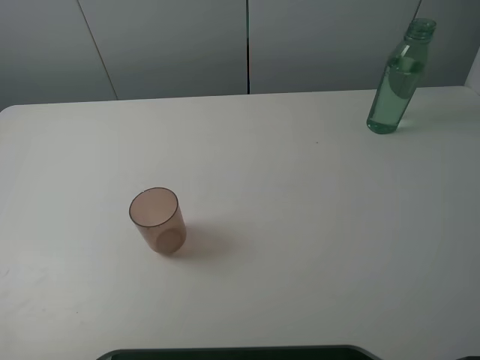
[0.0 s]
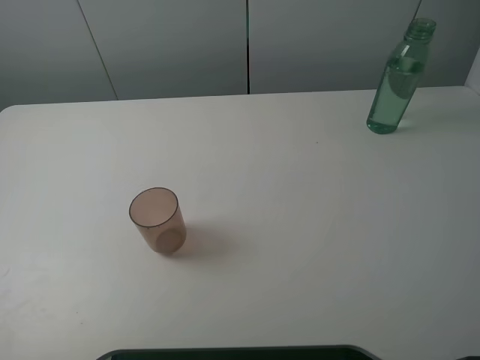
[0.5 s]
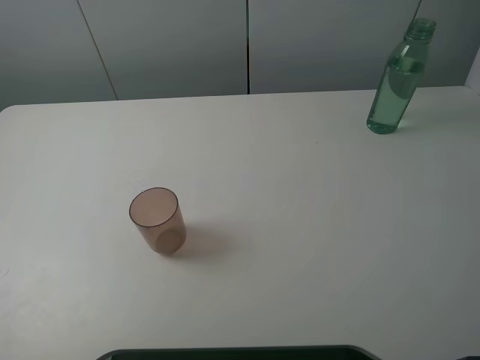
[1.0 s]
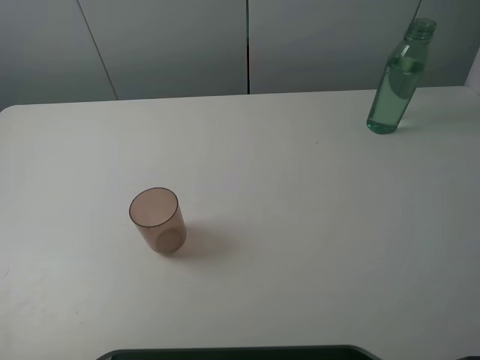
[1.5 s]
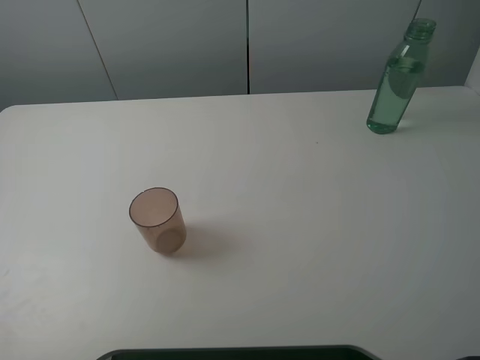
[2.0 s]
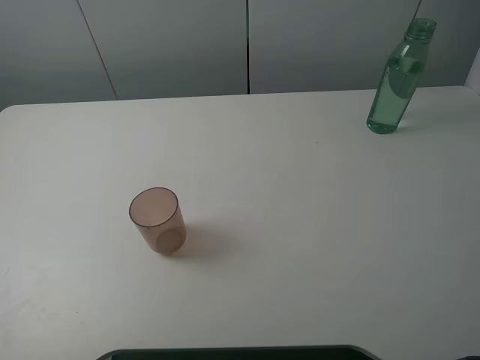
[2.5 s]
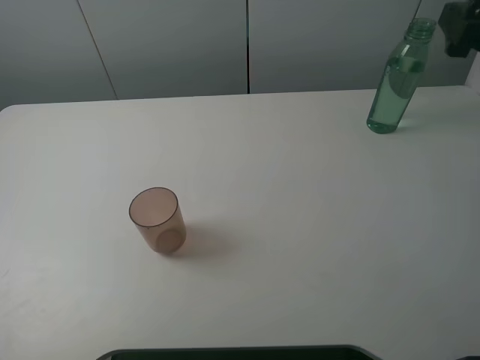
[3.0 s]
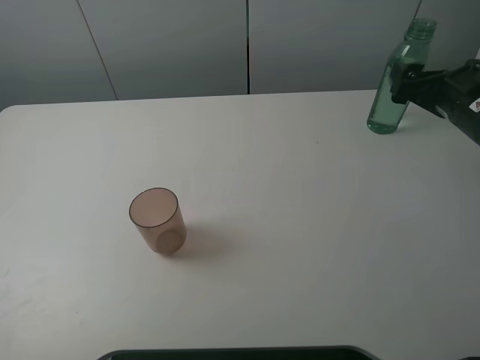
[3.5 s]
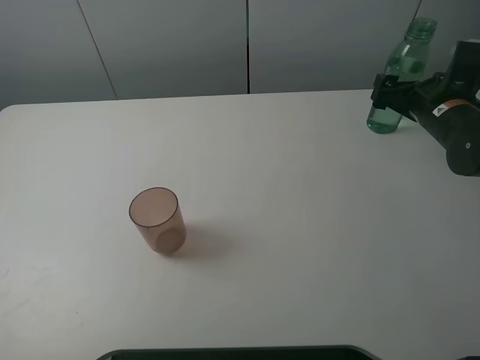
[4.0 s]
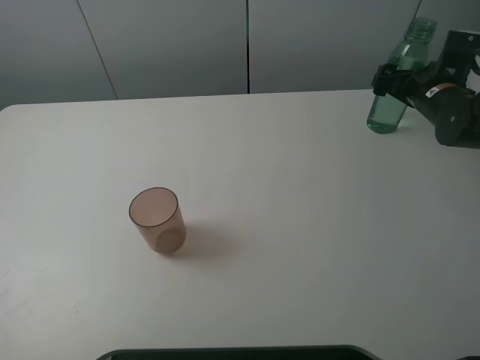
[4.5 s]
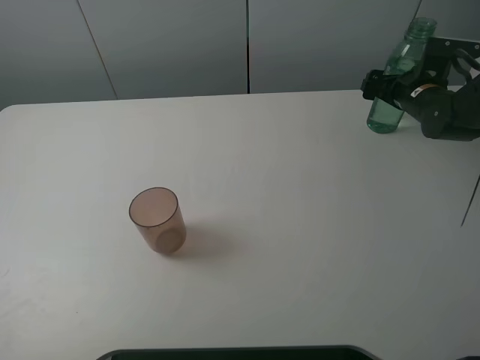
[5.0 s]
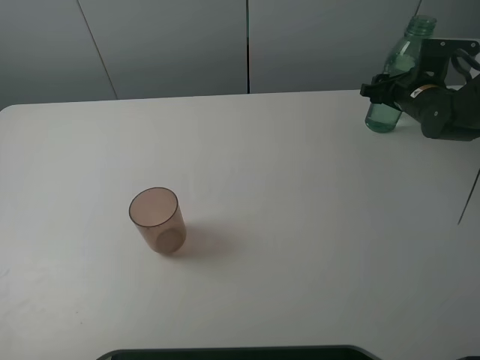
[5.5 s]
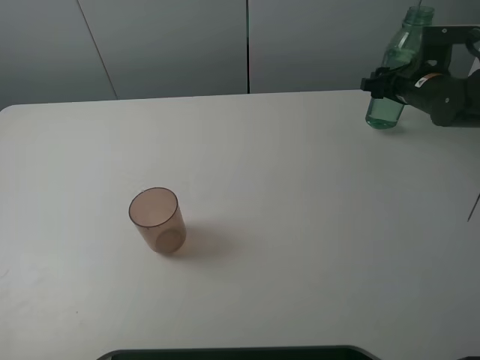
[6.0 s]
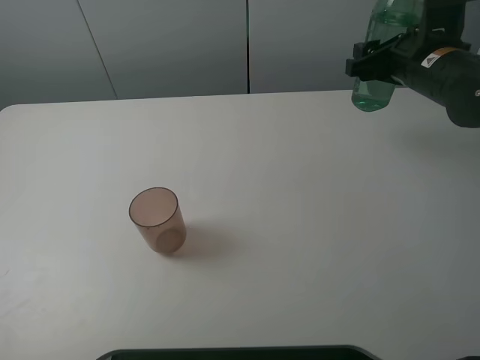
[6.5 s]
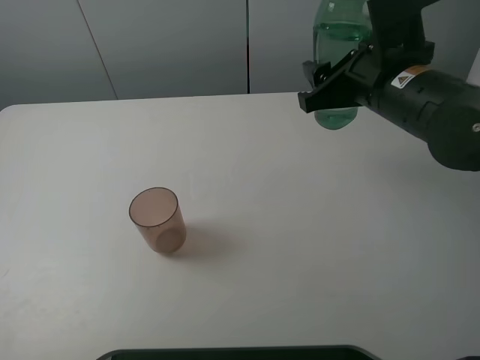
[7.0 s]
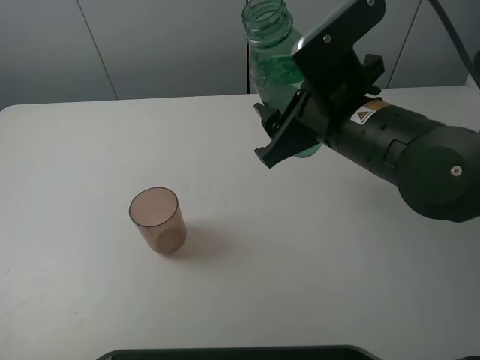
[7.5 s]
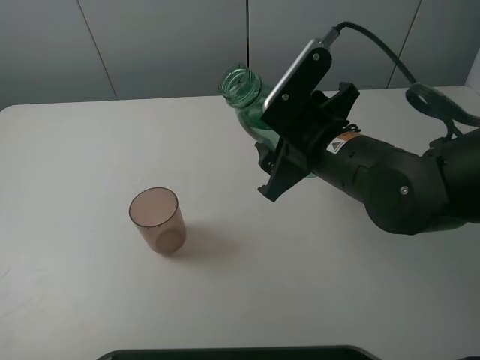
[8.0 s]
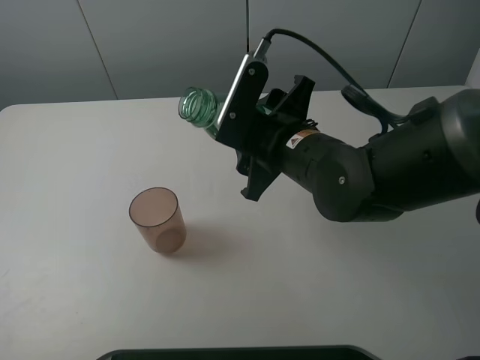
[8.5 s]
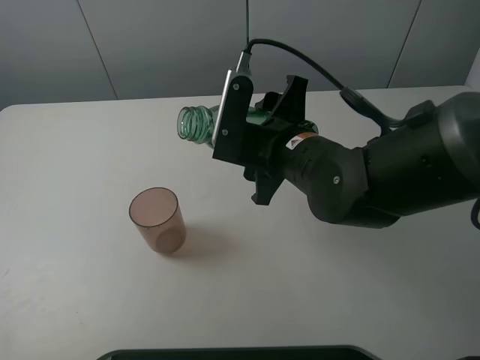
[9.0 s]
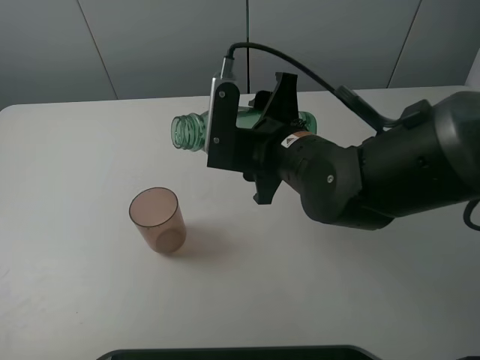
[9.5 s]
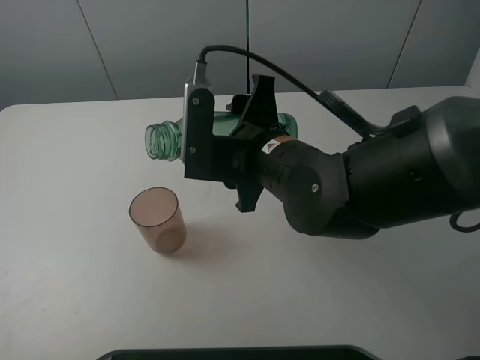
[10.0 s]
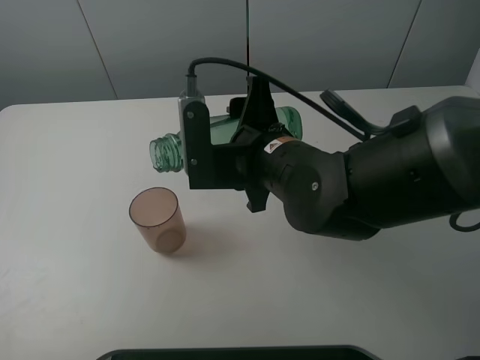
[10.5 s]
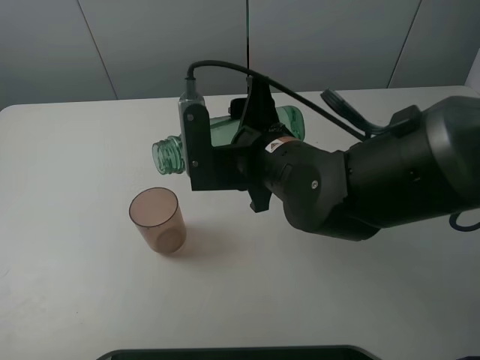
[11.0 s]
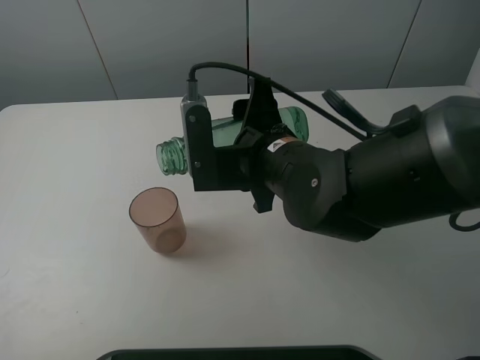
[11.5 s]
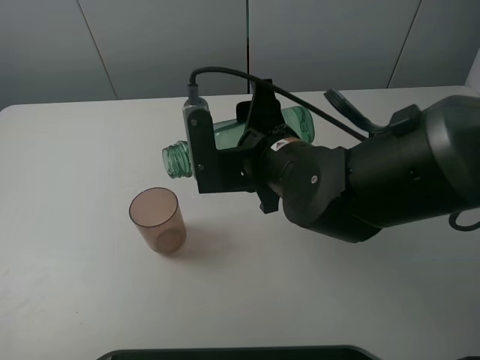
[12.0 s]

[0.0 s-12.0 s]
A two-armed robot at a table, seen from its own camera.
Task of the whole recording: pick up the bottle filled with water and pour it into the pink cup.
Step, 0.0 to 5.5 s: Grasp the green bottle with the right gripper.
2.0 to 4.0 s: The right gripper heads forward and downward, covering about 35 cm.
4.0 to 6.0 s: The right gripper goes about 5 cm forward, and closes up.
6.0 to 8.0 s: The right gripper heads backward and to the left, covering some 25 cm.
8.0 to 10.0 s: The right gripper travels to the left by roughly 5 cm.
10.0 to 12.0 s: The grippers make only small movements.

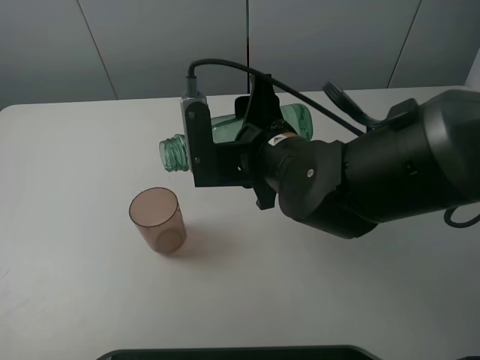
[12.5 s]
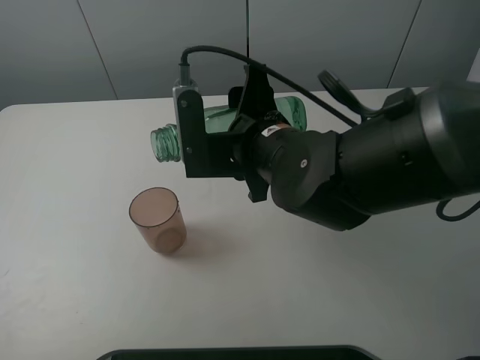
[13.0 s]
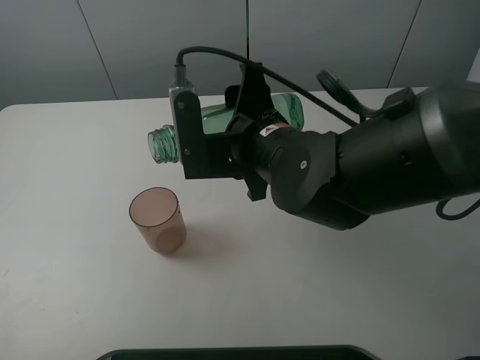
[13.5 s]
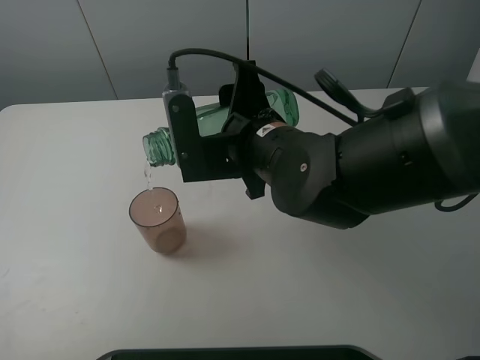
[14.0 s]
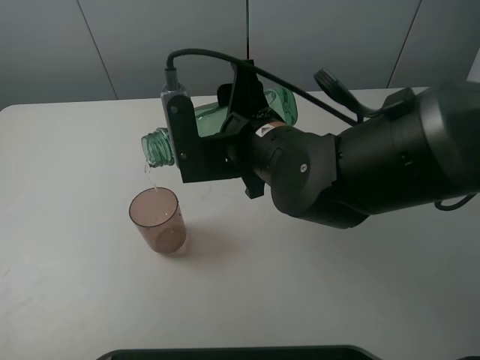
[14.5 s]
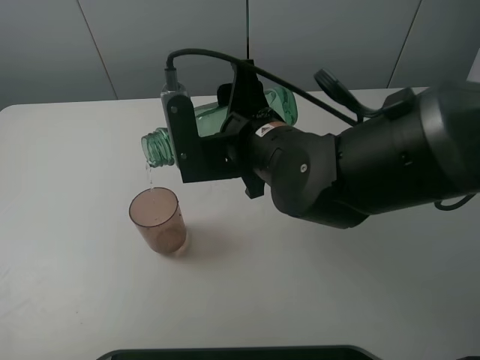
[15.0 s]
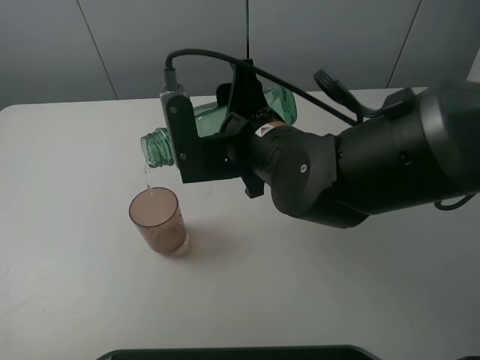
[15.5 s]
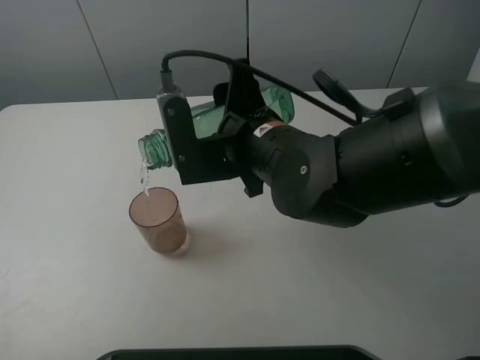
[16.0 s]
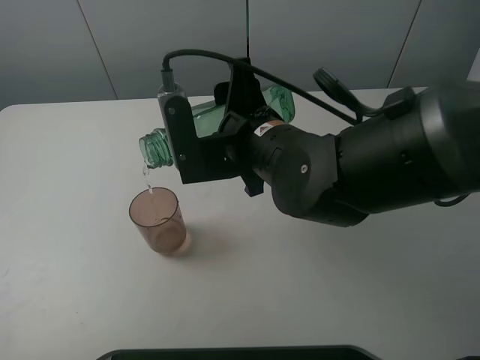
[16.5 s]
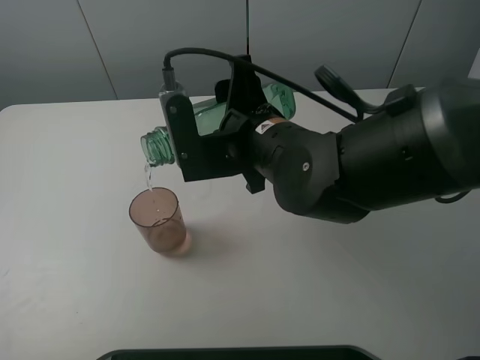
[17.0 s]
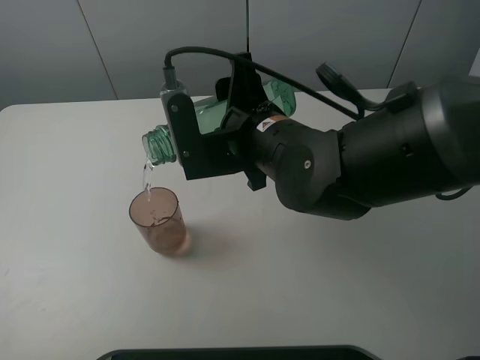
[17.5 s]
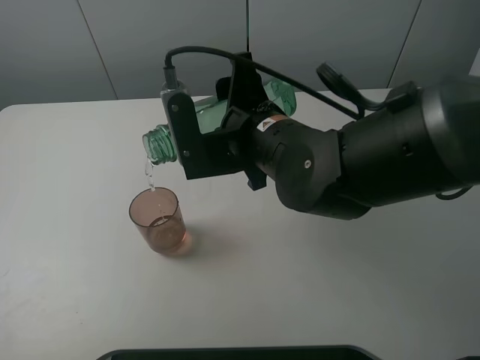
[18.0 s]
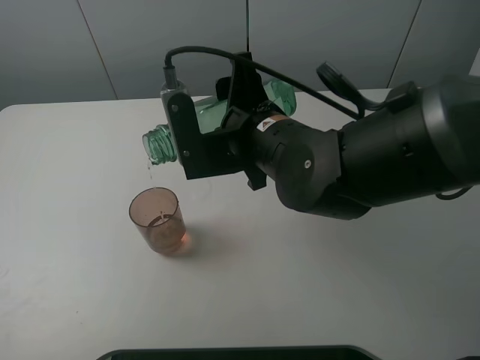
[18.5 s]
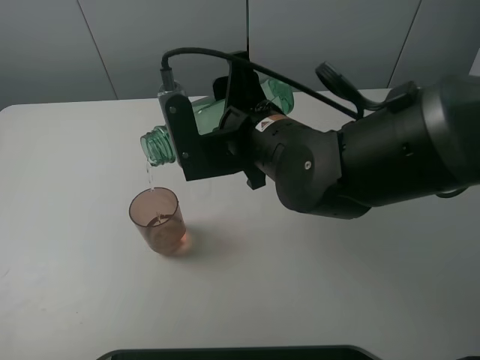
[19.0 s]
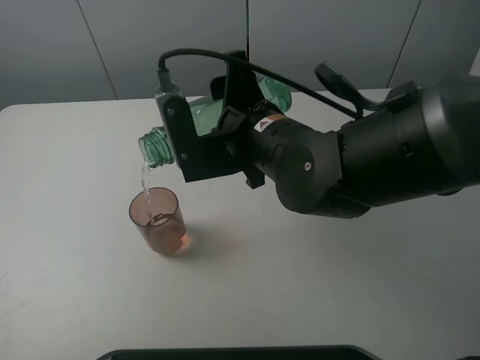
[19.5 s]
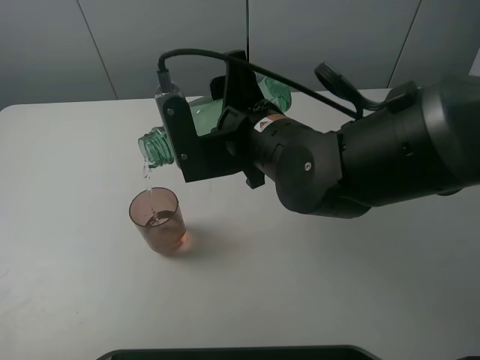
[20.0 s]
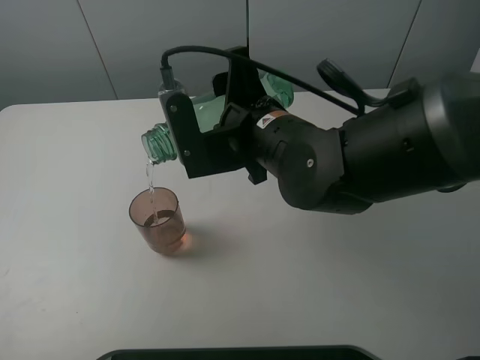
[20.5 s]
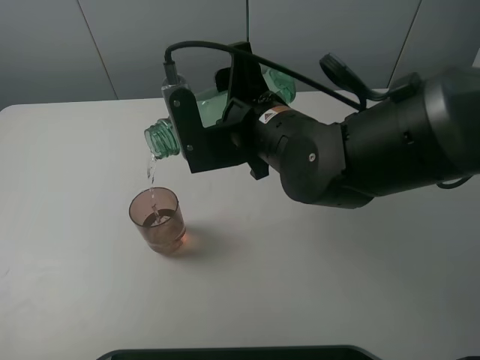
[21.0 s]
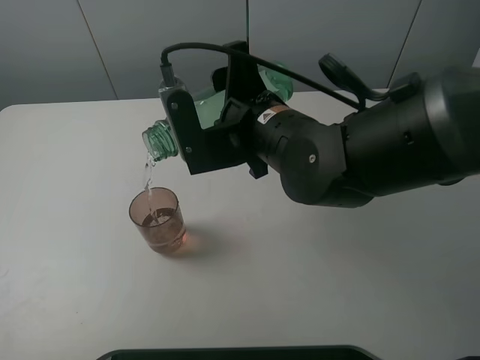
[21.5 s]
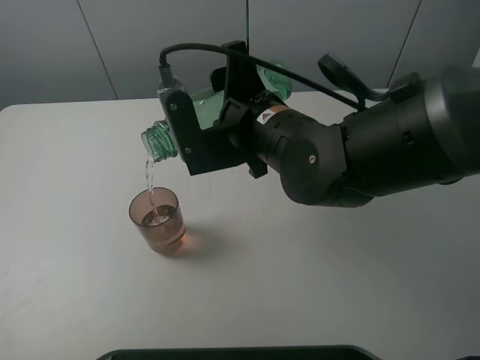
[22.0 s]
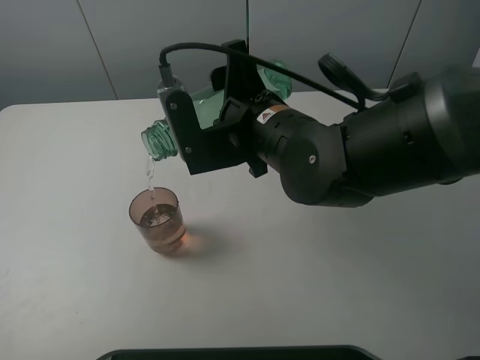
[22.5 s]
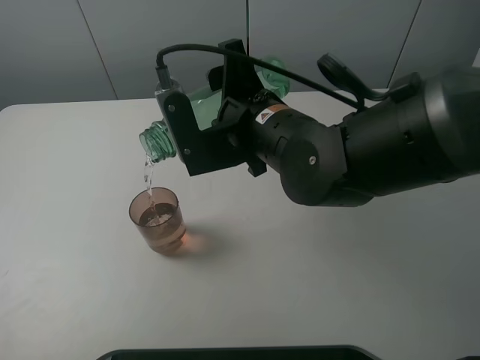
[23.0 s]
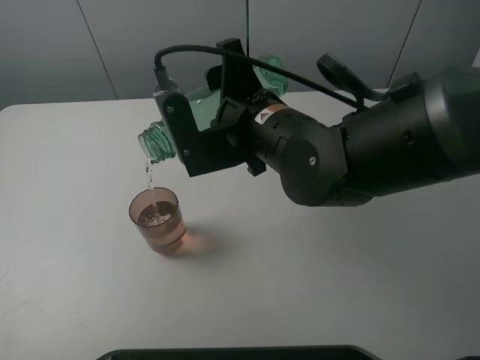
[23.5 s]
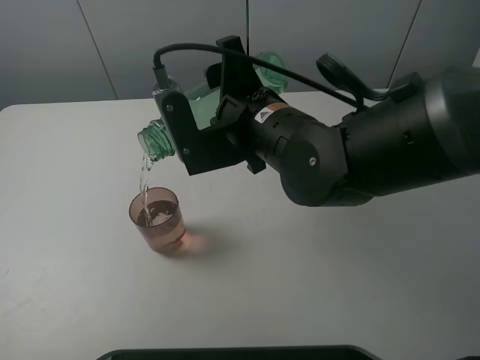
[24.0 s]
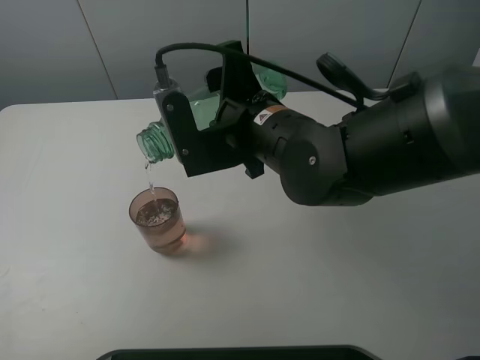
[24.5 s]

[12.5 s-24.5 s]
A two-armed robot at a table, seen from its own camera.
Task of the whole recording: pick up the bottle filled with water and pour it into the pink cup.
12.5 to 14.5 s: The grippers stay close to where they were, moving slightly.
14.5 to 18.5 s: Neither gripper changes place.
18.5 to 20.5 s: Neither gripper changes place.
20.5 to 22.5 s: Both grippers stay put.
22.5 to 24.5 s: The two grippers keep their place.

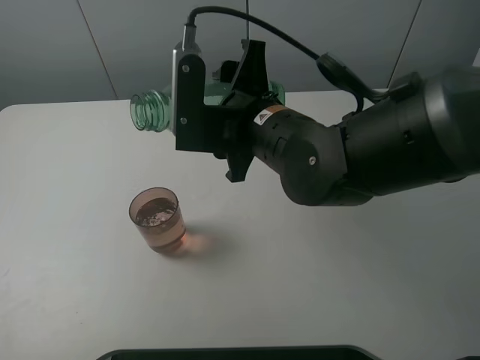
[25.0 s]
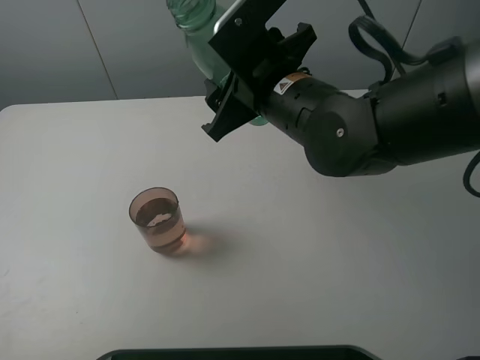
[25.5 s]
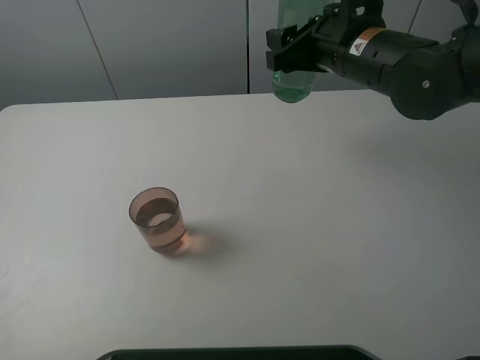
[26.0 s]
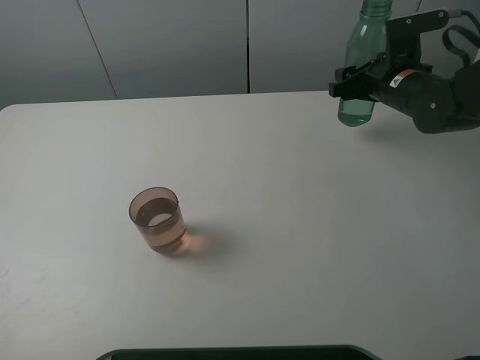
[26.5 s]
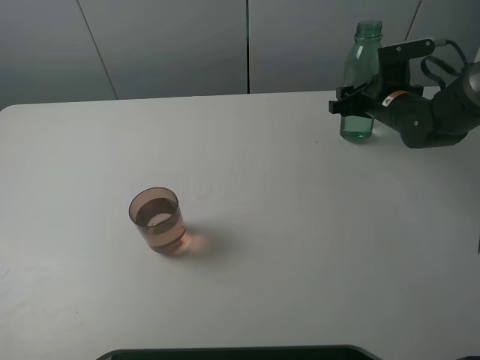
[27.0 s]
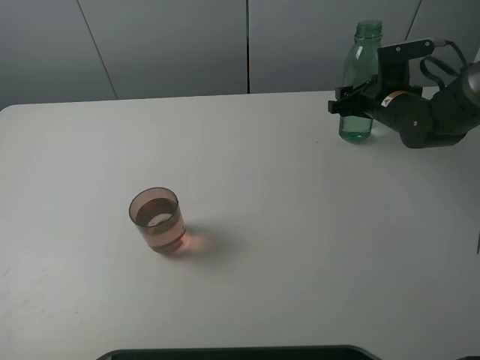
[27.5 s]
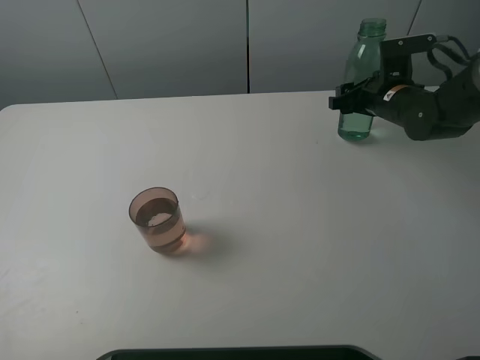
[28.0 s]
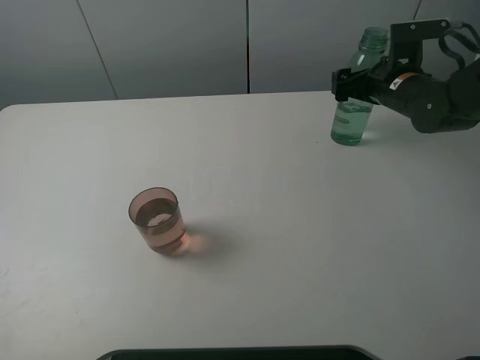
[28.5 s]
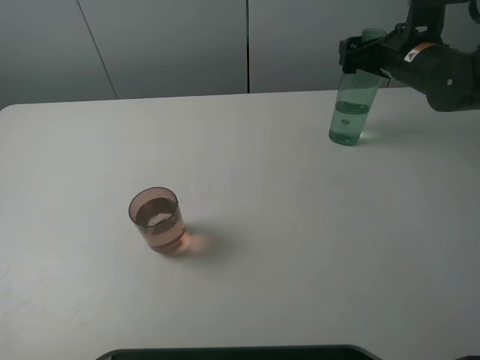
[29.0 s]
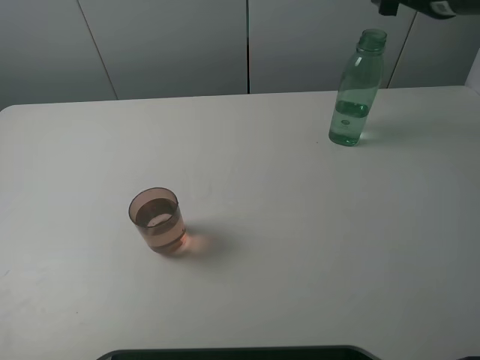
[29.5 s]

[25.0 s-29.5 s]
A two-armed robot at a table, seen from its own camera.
Task of the whole recording: pick up the bottle filled with water and pour it into the pink cup.
Step, 25.0 to 29.0 s: Place the green bottle with the right gripper.
25.0 to 27.0 s: The right gripper moves to the right, forward and downward, about 30 cm.
27.0 to 29.5 s: The right gripper travels upward by some 20 cm, and opens.
